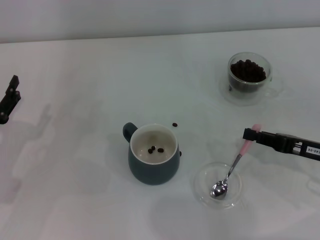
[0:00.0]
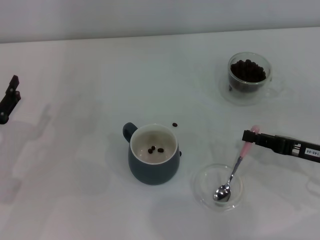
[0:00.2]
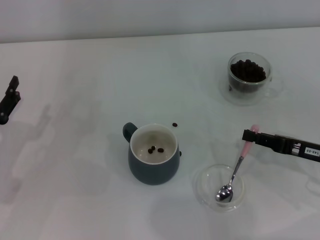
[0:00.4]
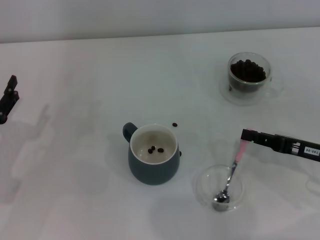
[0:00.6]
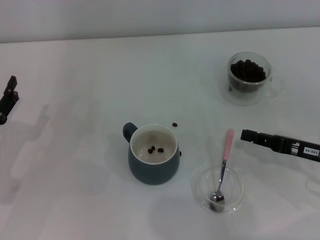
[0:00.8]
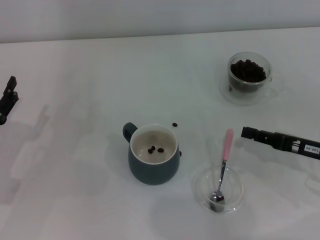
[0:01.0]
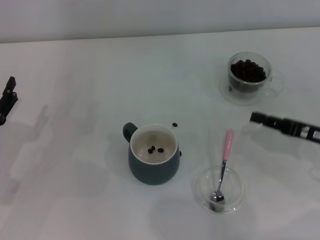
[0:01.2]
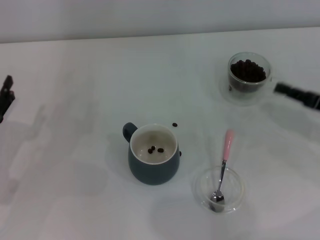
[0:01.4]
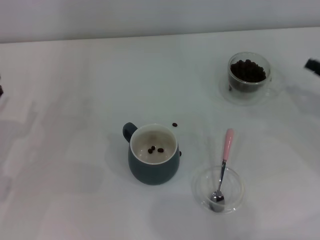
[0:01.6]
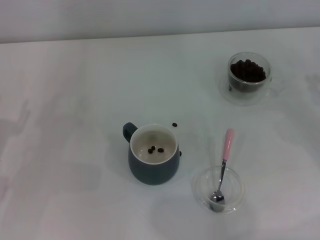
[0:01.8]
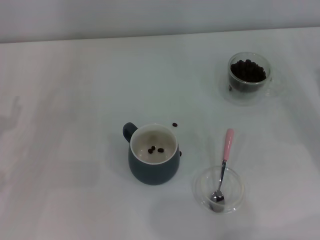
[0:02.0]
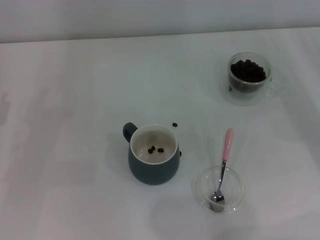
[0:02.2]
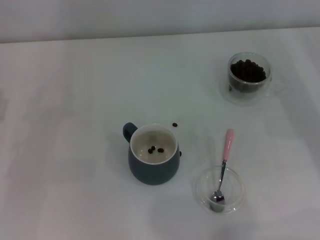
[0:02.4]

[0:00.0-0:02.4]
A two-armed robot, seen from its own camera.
Task of the whole recording: Use a pink spoon to take out the coffee beans from the glass and pour them into the gray cup.
0:00.0 to 0:01.2: The grippers stay close to where they were, moving slightly.
0:01.2 to 0:02.4: The right gripper shifts approximately 5 cm to the right.

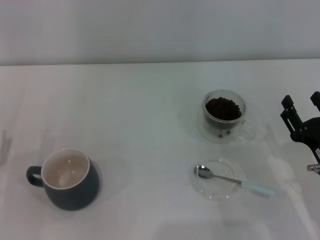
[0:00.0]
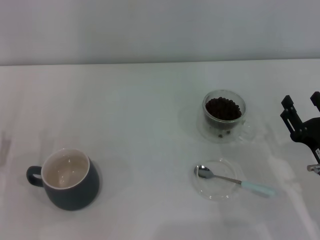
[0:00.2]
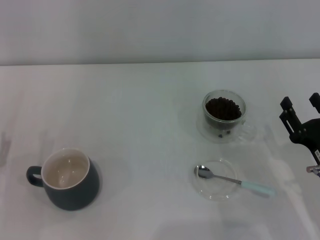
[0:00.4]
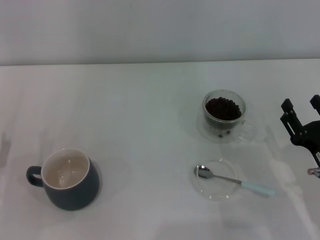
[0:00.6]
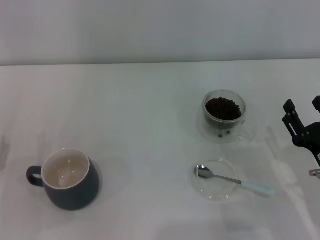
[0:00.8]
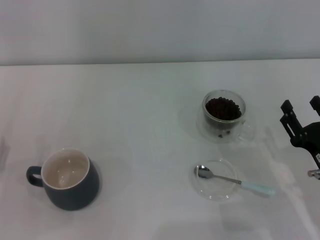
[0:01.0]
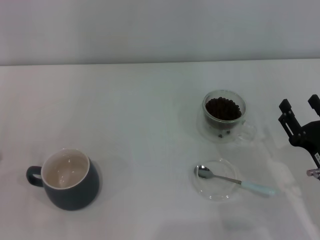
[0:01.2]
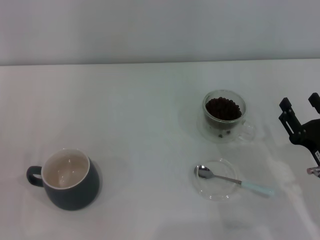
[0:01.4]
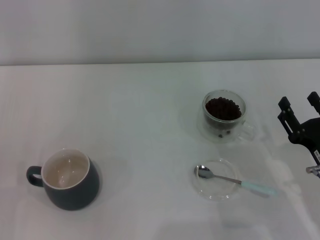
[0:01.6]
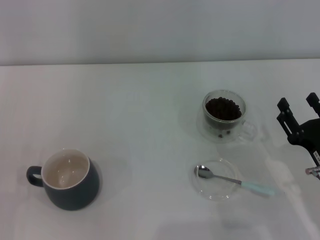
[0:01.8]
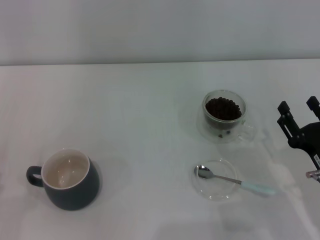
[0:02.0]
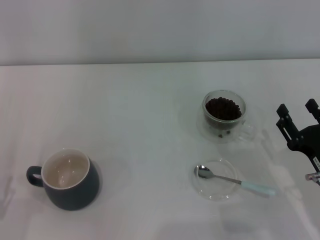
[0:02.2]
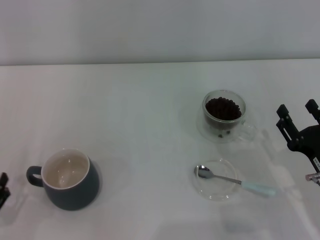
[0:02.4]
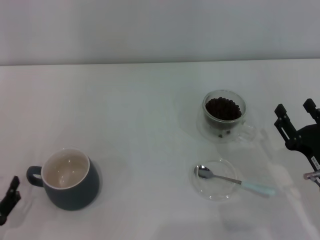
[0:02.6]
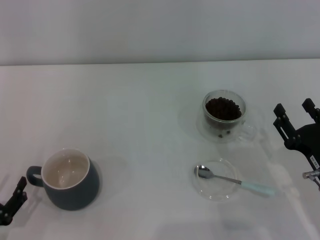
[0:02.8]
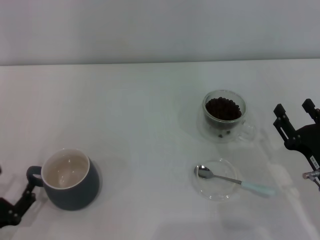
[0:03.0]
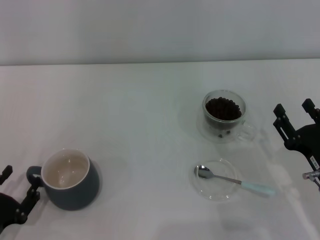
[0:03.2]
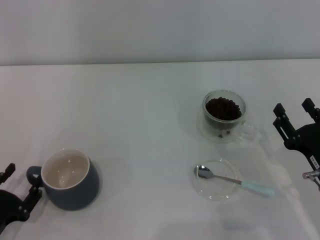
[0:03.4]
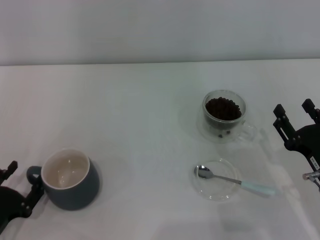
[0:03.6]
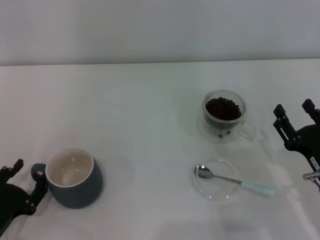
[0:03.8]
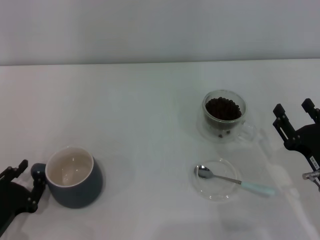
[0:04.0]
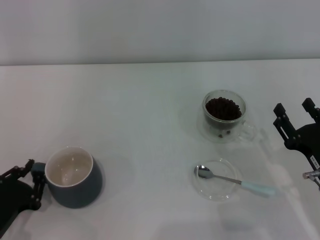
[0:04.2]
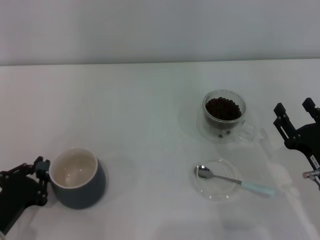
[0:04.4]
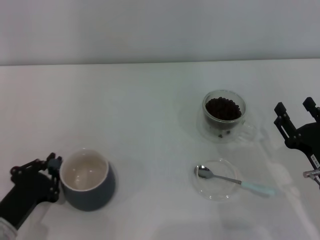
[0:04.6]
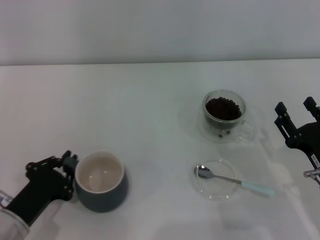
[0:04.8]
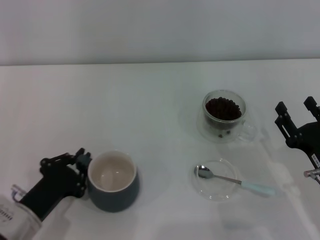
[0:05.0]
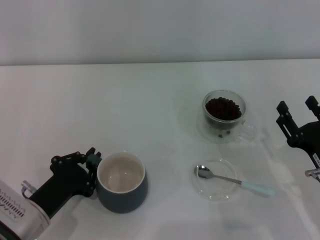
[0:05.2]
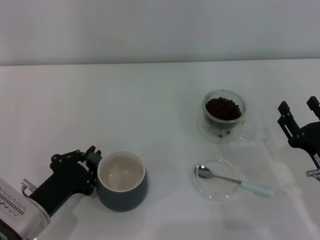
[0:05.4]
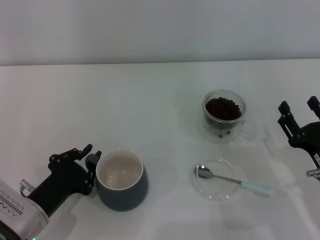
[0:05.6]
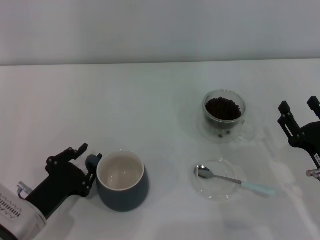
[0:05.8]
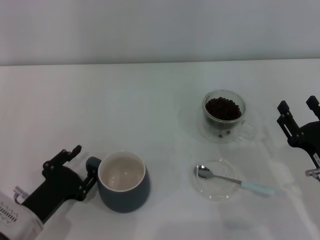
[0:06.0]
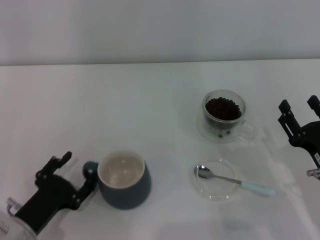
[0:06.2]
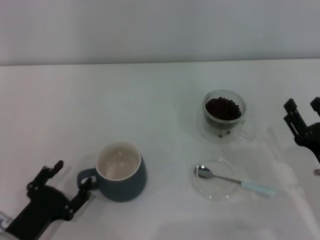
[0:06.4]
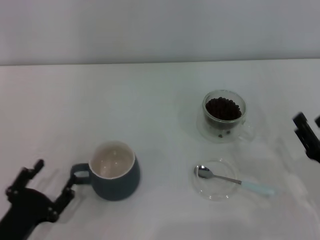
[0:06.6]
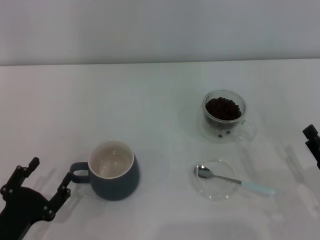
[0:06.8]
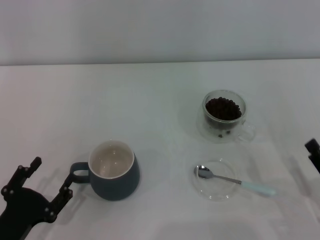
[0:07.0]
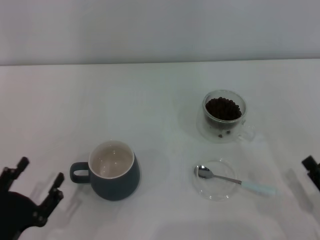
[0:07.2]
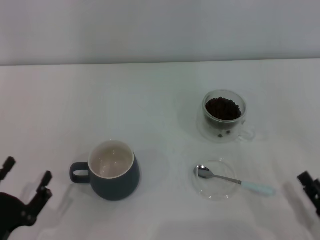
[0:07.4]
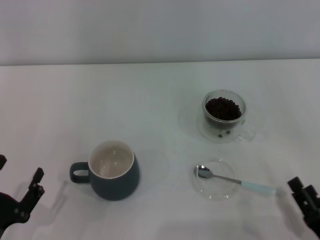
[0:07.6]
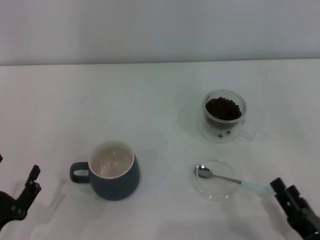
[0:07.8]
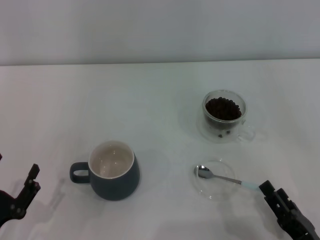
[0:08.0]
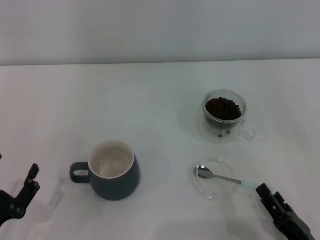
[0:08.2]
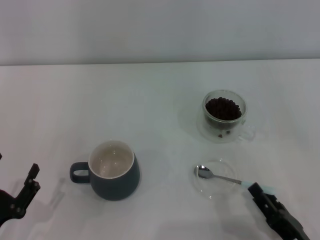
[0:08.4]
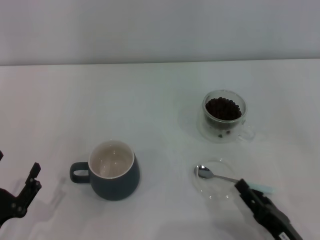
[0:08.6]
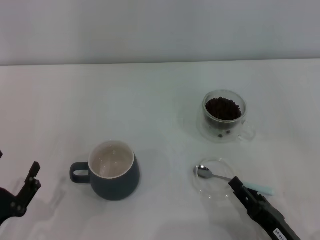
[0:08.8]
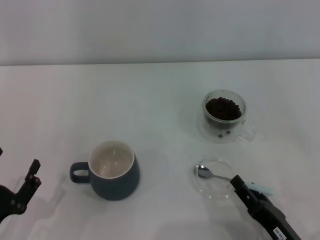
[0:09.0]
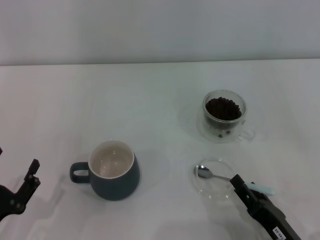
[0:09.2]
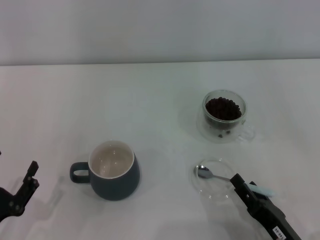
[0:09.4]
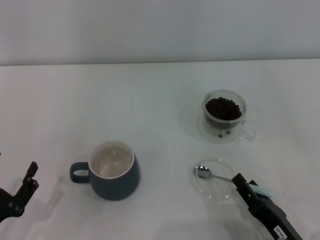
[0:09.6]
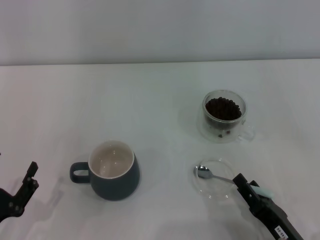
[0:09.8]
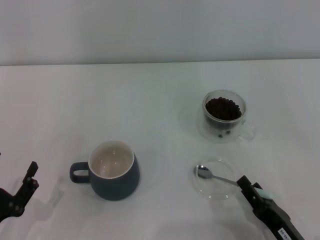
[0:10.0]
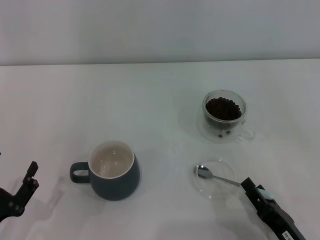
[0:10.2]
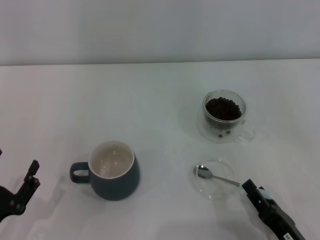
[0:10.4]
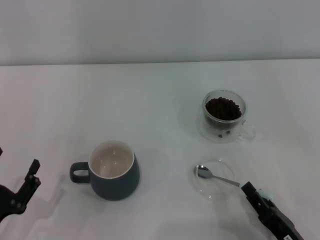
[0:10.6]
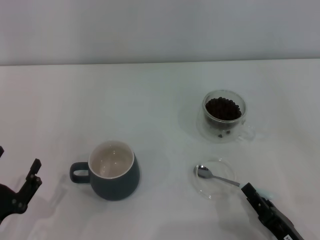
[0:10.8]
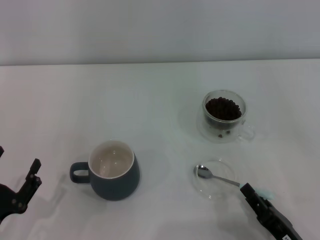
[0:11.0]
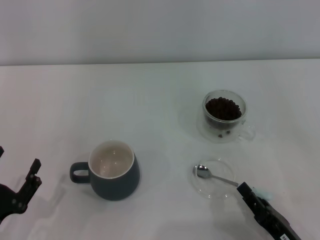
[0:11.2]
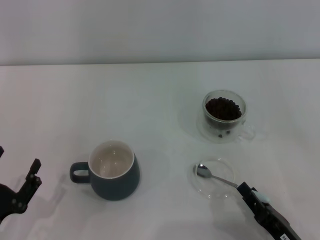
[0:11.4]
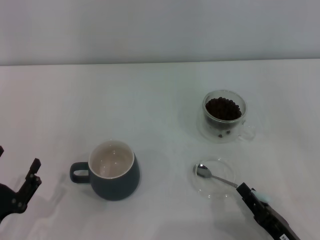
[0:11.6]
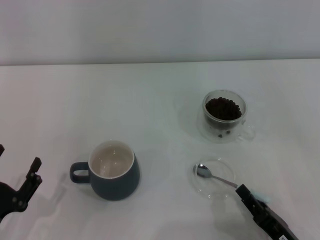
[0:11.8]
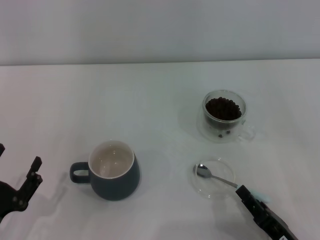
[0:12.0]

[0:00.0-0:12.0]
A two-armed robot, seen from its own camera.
Task of the whole recording: Use a blue spoon to take out the coffee beans from the glass and pour them into the gray cup.
Step, 0:00.0 to 0:07.2: Move the cup to the center of view with the left gripper.
0:03.0 to 0:04.4: The left gripper shifts by about 5 cm, and closes its fingers.
0:04.4 to 0:06.0: The left gripper changes place by some 5 cm.
0:06.0 to 0:07.6: The left gripper travels backward by about 10 cm, and opens up. The right gripper travels backward by roughly 15 cm.
0:07.6 to 0:09.0: The right gripper moves about 5 cm.
0:09.0 to 0:10.4: Both grippers stay about where they are.
0:10.4 to 0:12.0: The grippers stay close to where they were, moving slightly.

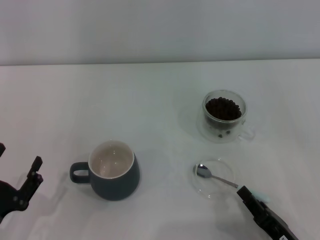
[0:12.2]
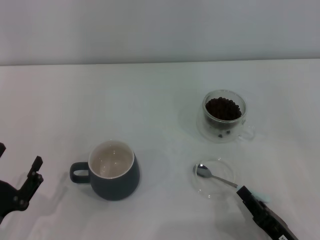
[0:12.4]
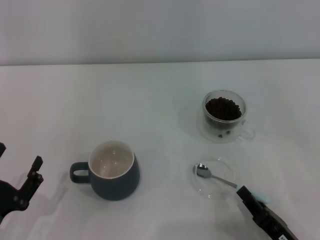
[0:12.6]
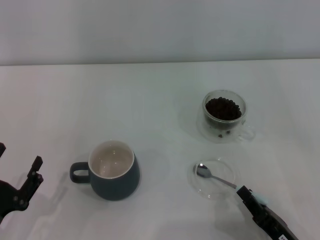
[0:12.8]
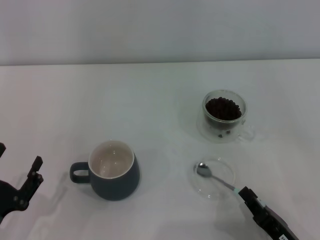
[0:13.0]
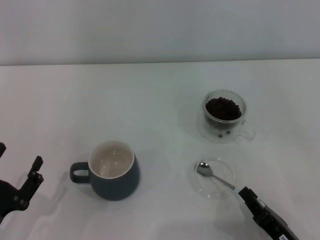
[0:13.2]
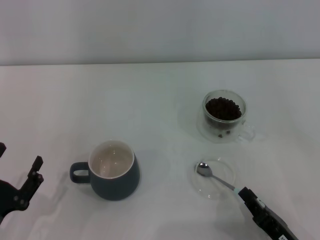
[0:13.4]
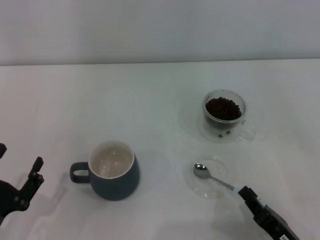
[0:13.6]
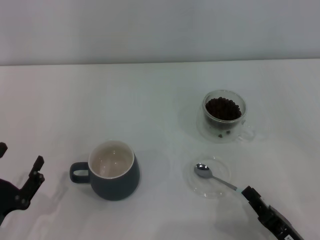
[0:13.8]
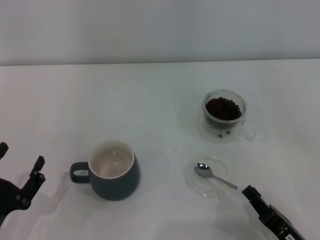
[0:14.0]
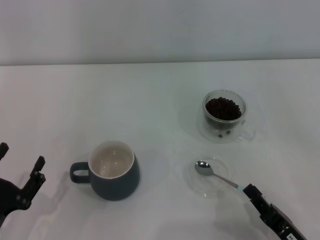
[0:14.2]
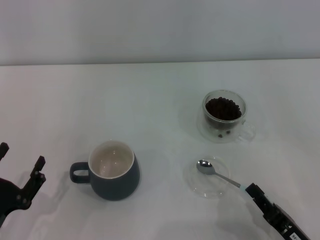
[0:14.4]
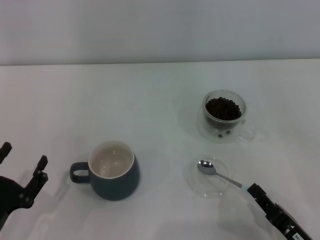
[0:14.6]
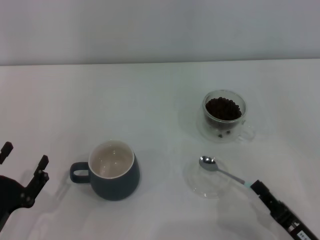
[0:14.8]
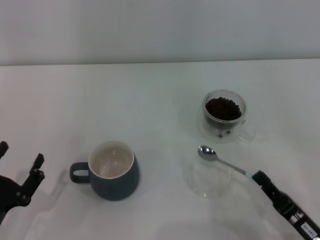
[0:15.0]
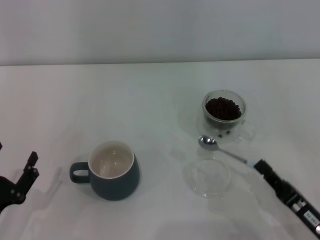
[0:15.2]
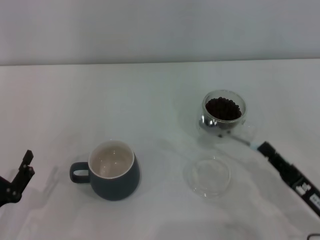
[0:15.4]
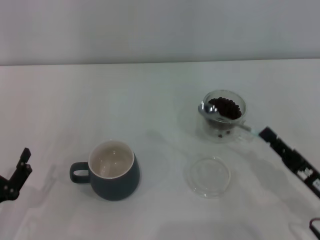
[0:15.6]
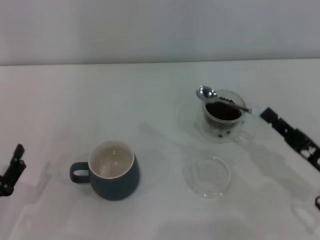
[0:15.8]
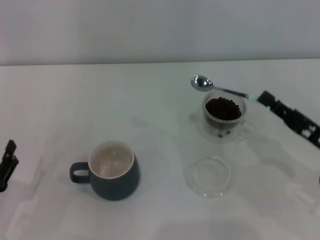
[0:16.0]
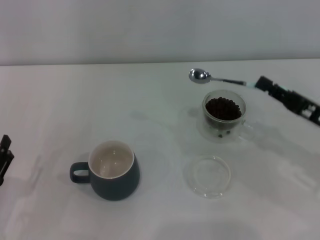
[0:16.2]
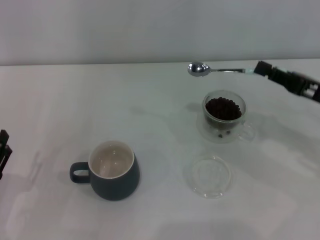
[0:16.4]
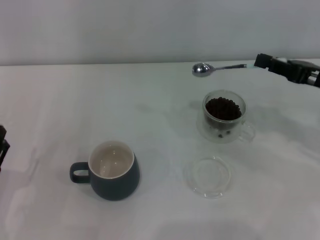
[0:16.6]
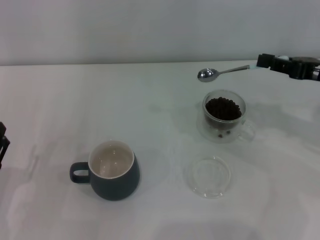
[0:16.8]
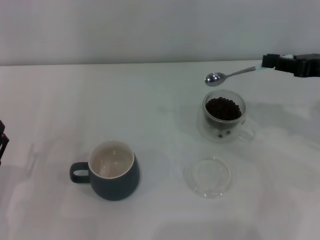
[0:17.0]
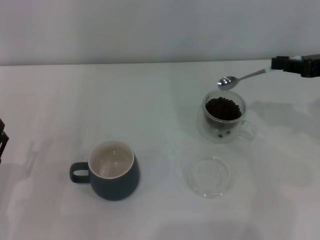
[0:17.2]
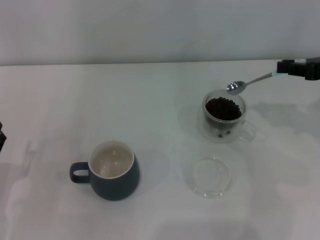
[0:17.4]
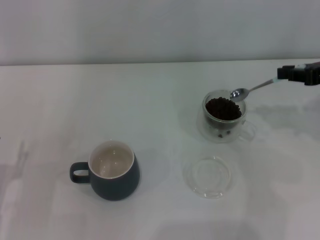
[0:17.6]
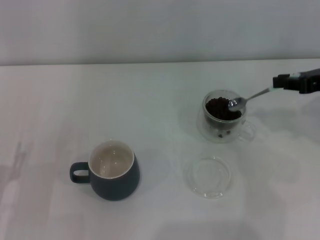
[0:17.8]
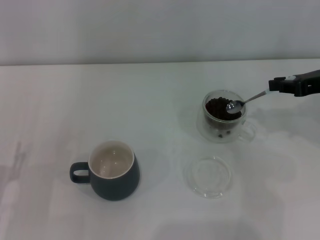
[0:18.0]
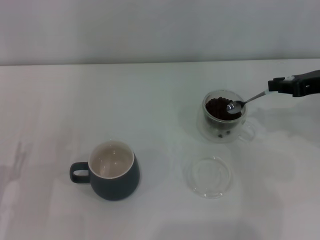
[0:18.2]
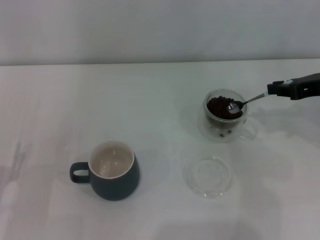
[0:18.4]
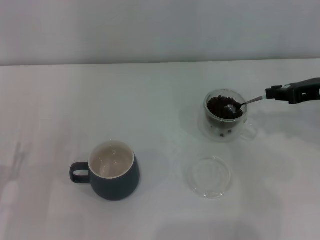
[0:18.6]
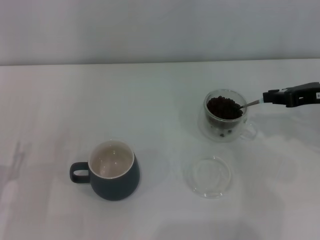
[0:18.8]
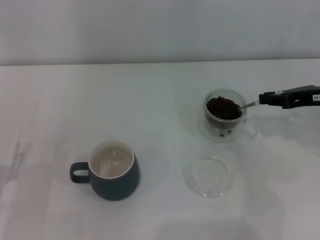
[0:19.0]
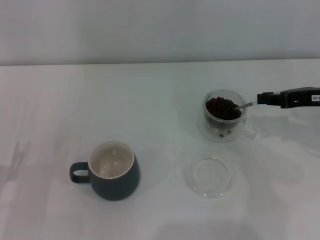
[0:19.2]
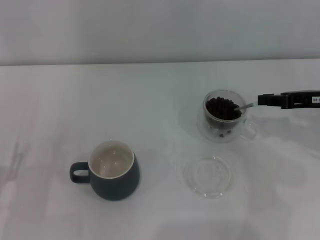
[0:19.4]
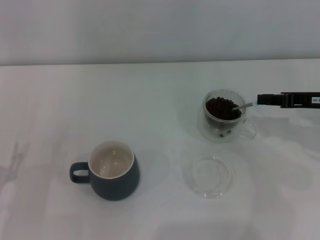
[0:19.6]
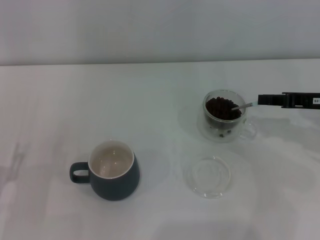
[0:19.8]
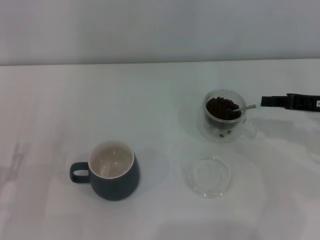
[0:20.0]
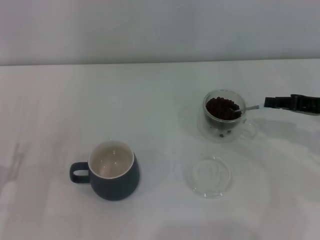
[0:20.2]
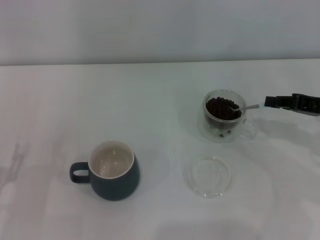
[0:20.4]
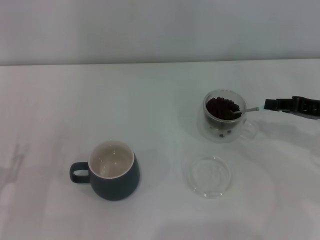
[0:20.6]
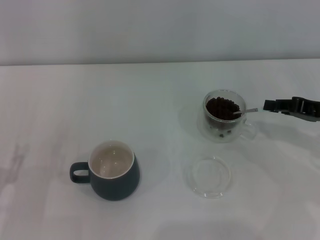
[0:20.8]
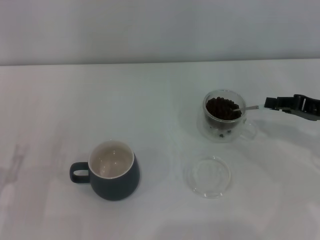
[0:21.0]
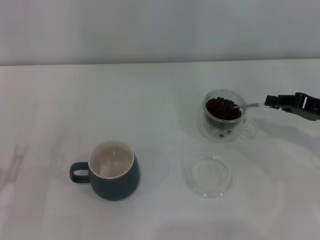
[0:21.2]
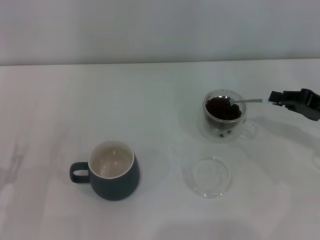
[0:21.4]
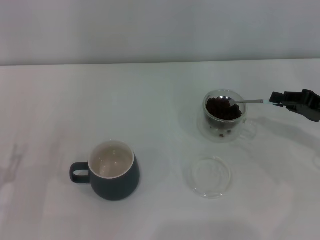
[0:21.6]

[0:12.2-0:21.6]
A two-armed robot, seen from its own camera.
Task of the whole recording: Use a blue spoon to take out the coffee beans from the glass and pour them into the gray cup.
Step, 0:12.2 to 0:14.8: Pick up the spoon with the right gripper.
0:12.2 to 0:13.8: The right gripper closes.
0:13.8 to 0:15.4: The right gripper shifts by about 5 cm.
0:15.4 to 0:17.0: The right gripper goes approximately 25 cm forward, upward and to the right.
0:20.0 to 0:21.6: The grippers stay close to where they were, moving slightly.
